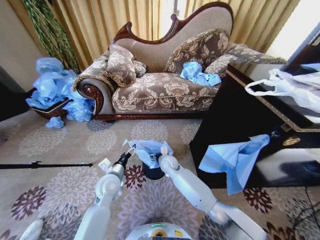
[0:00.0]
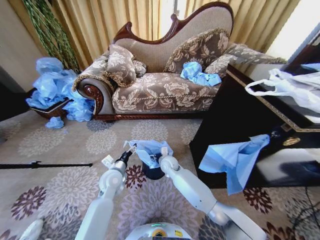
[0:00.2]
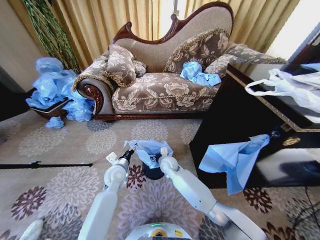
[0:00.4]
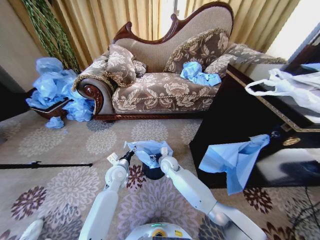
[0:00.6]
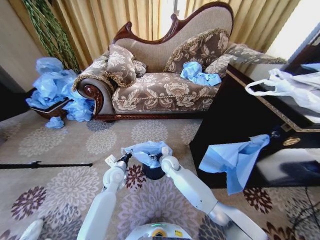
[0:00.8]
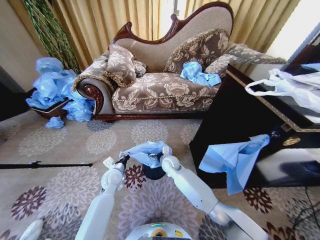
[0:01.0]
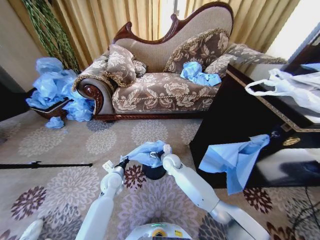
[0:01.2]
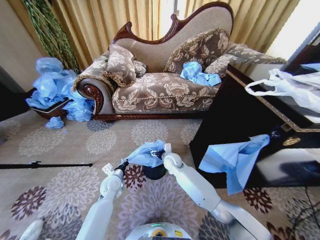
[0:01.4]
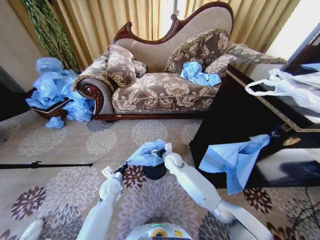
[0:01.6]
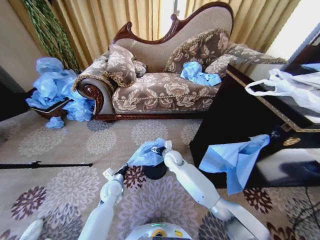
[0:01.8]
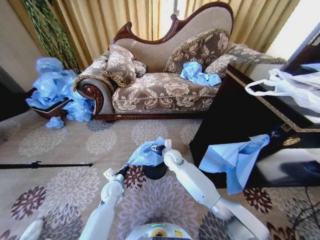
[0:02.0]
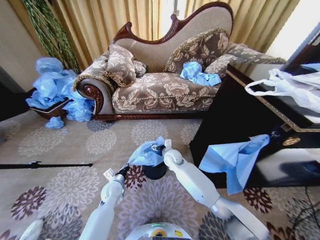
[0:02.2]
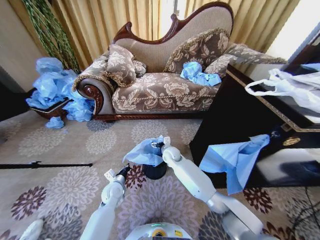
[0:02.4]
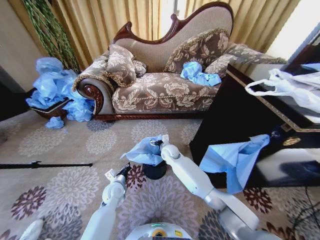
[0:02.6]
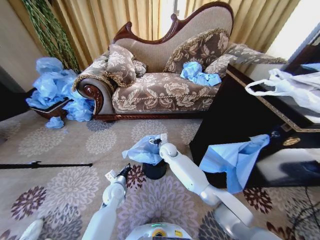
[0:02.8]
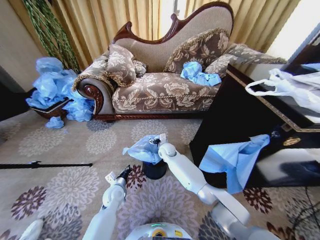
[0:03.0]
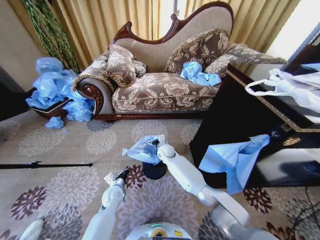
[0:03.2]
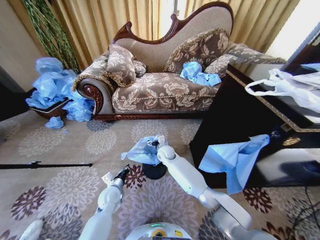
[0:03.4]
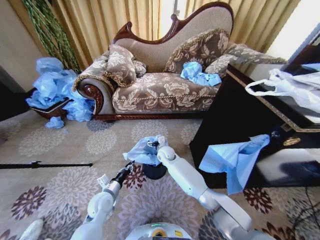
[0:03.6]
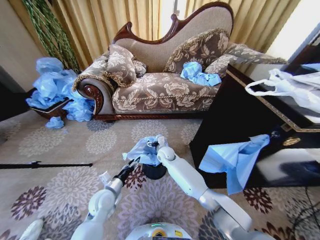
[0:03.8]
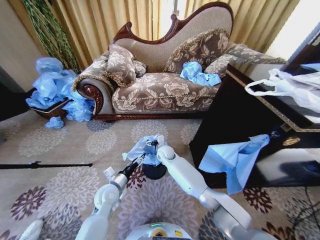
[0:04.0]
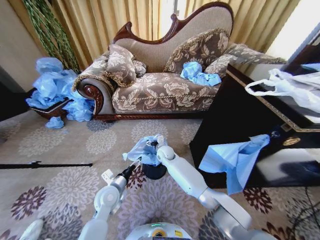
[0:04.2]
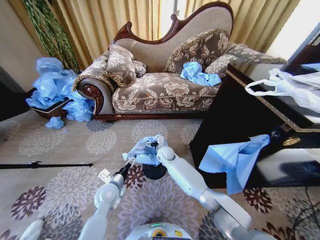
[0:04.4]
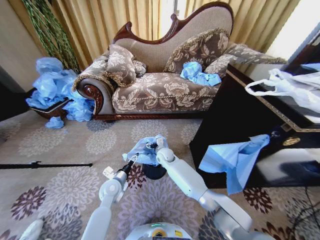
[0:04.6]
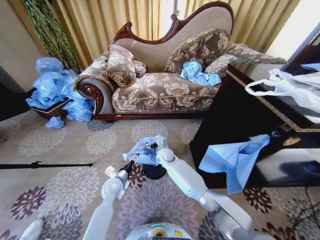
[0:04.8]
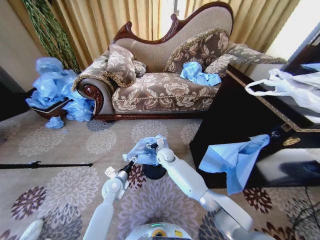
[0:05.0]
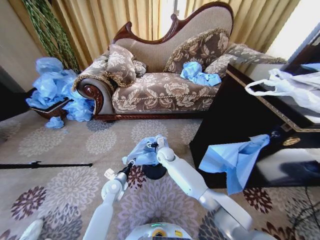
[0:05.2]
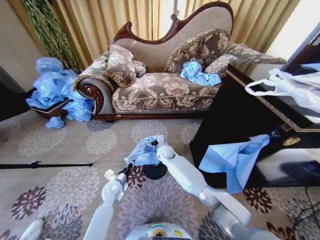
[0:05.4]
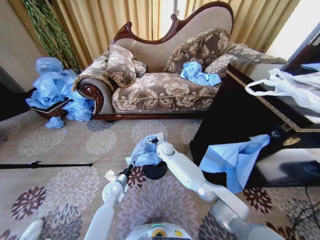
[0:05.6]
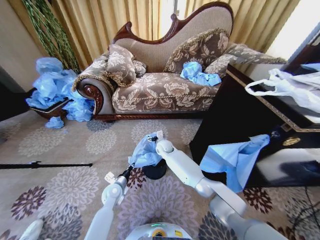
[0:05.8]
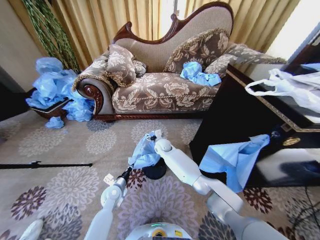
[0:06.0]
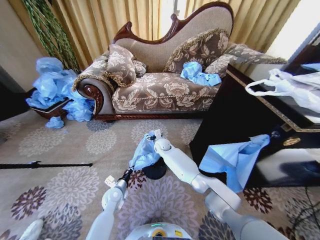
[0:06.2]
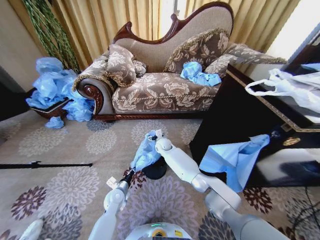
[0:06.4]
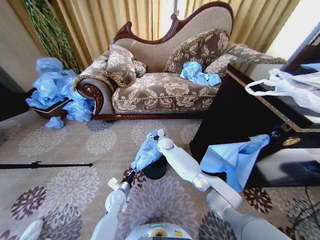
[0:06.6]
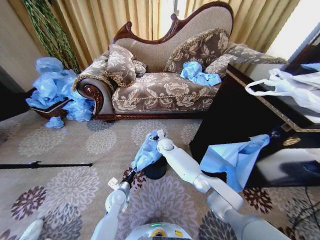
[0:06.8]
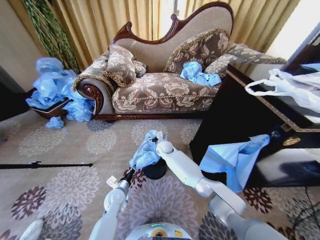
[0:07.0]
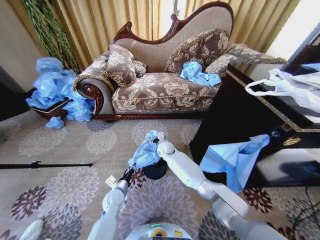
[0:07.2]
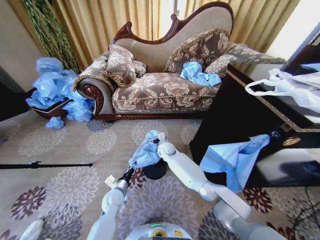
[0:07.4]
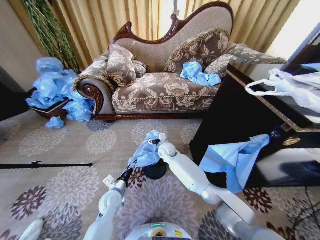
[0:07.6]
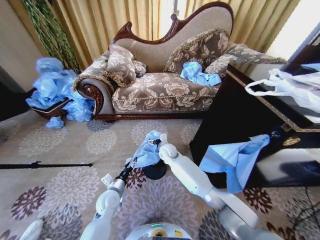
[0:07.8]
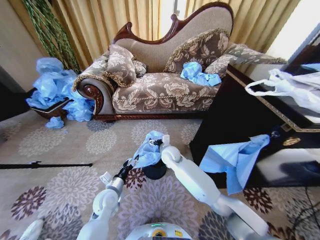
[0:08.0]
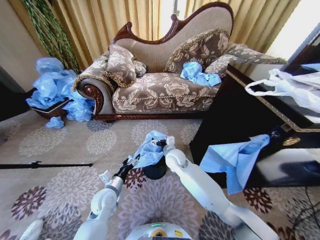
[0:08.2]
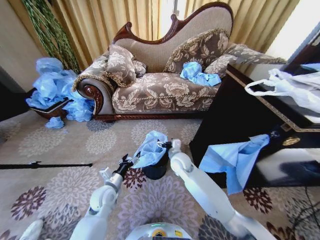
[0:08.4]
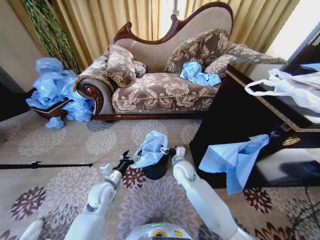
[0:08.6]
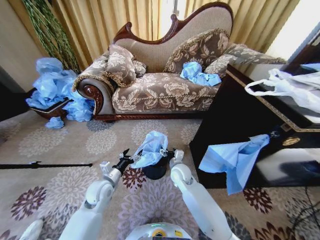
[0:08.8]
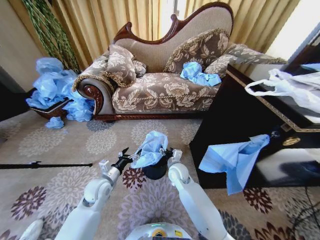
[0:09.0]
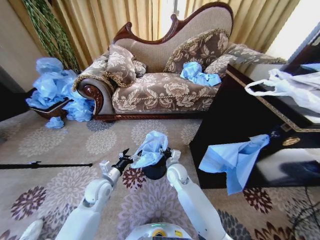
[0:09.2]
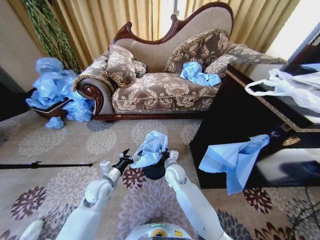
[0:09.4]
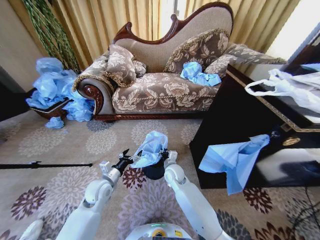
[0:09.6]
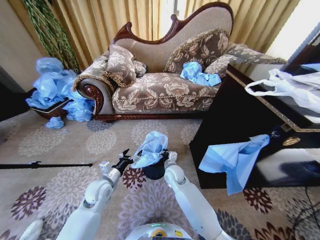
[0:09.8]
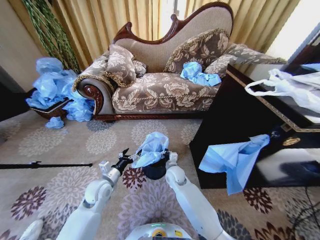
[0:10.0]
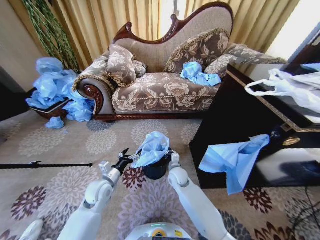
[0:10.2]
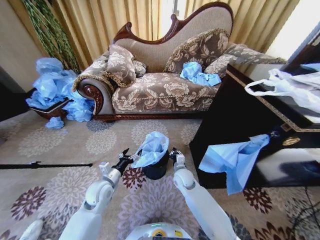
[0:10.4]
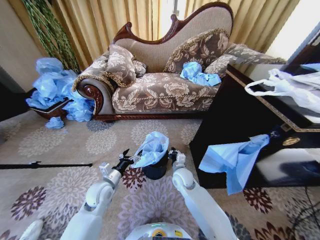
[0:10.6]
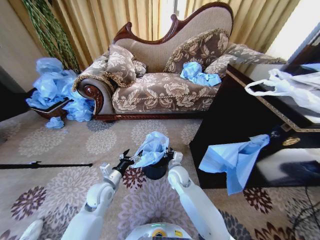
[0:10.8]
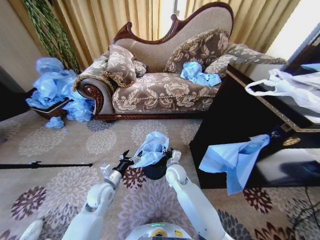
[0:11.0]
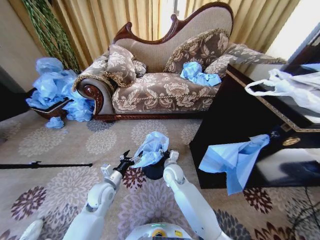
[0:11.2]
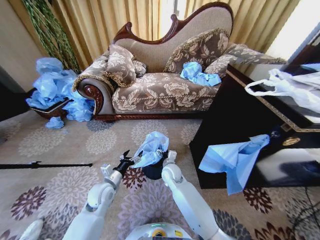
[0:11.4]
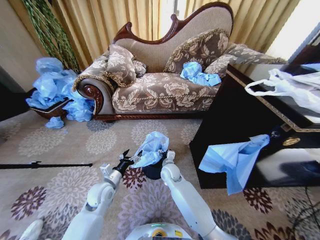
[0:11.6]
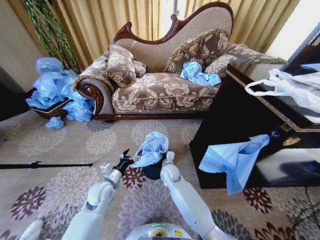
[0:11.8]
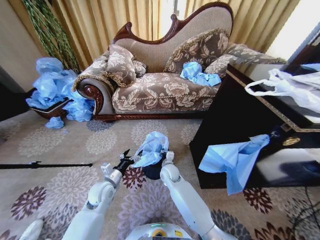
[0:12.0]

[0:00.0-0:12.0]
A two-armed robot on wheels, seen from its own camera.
Task of the whole recording: Place a garbage bag over the trash bin.
0:00.0 to 0:01.6: The left gripper travels downward by approximately 10 cm, and closes its fingers.
0:01.6 to 0:03.0: The right gripper moves forward, approximately 5 cm.
0:03.0 to 0:04.4: The left gripper shifts about 10 cm upward, and opens up.
0:04.4 to 0:06.0: The right gripper moves some 5 cm. The left gripper is displaced downward by roughly 10 cm, and closes its fingers.
0:06.0 to 0:07.6: The left gripper opens its fingers.
0:07.6 to 0:09.0: The right gripper travels backward by about 10 cm. Meanwhile the left gripper is displaced upward by roughly 10 cm, and opens up.
0:09.0 to 0:10.4: The right gripper closes.
0:10.4 to 0:12.0: The right gripper is displaced to the left by some 5 cm, and opens and closes again.

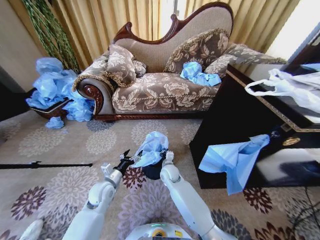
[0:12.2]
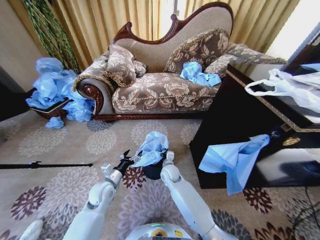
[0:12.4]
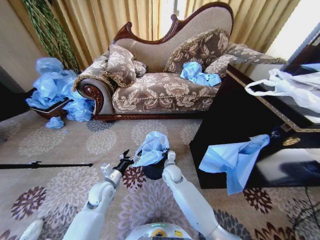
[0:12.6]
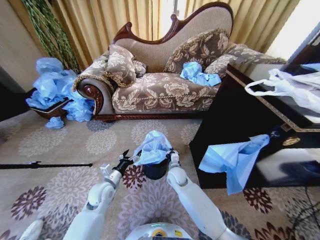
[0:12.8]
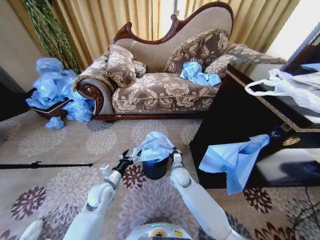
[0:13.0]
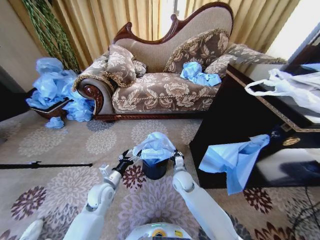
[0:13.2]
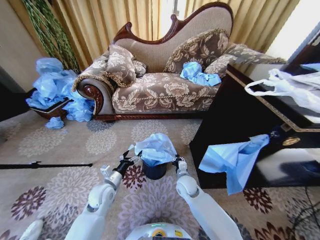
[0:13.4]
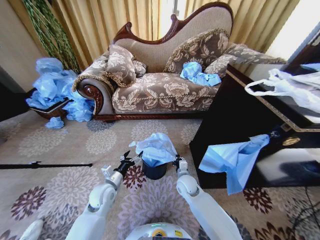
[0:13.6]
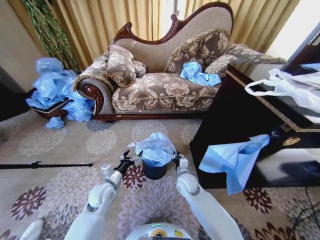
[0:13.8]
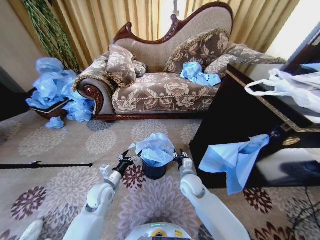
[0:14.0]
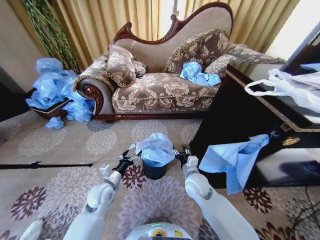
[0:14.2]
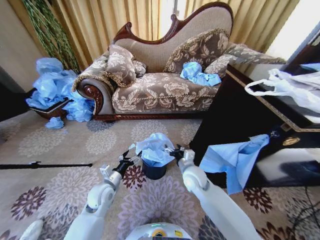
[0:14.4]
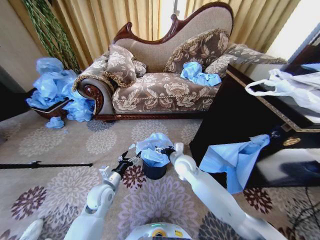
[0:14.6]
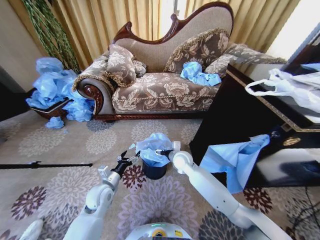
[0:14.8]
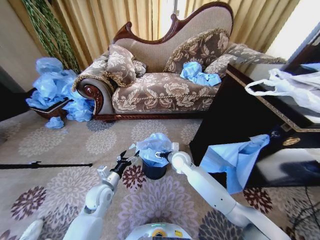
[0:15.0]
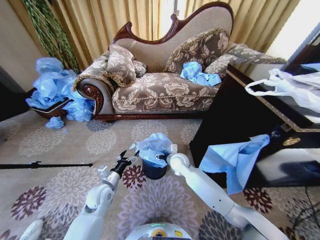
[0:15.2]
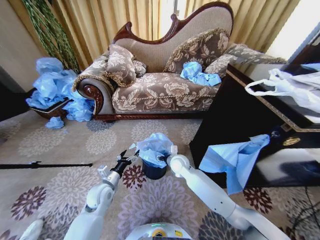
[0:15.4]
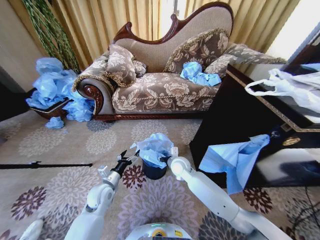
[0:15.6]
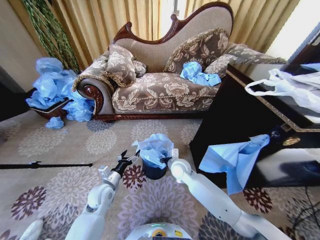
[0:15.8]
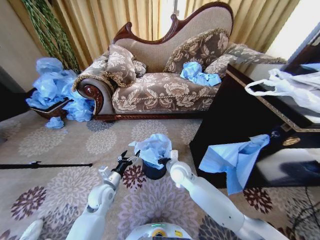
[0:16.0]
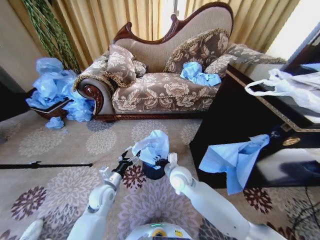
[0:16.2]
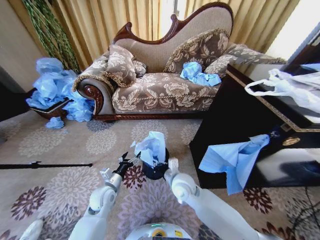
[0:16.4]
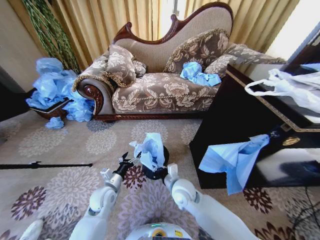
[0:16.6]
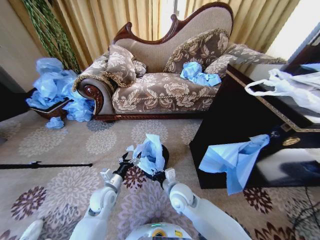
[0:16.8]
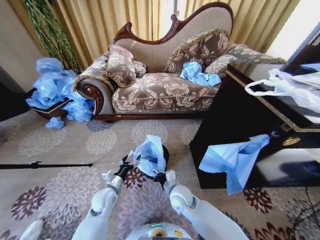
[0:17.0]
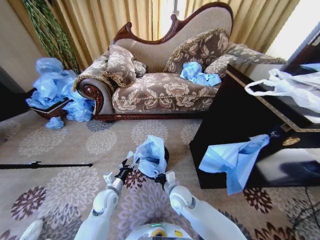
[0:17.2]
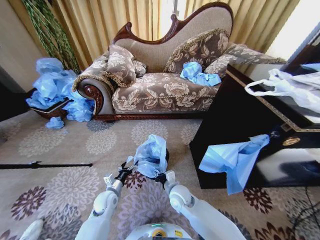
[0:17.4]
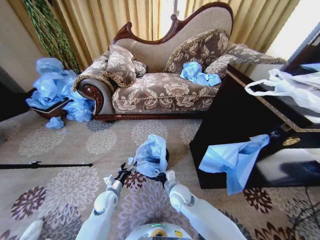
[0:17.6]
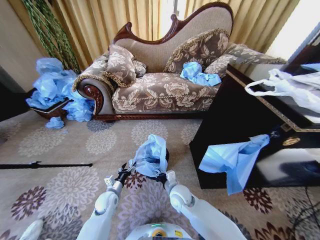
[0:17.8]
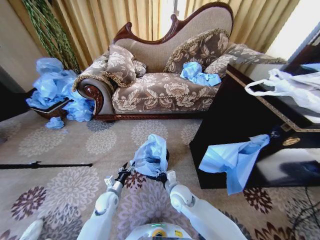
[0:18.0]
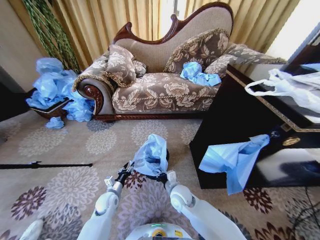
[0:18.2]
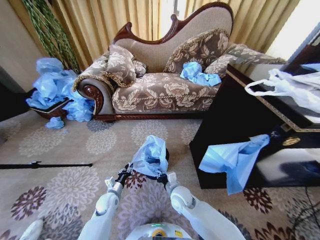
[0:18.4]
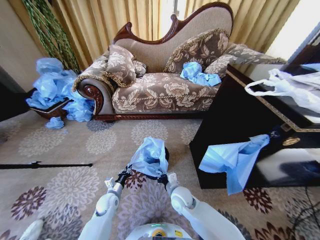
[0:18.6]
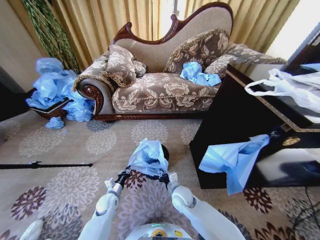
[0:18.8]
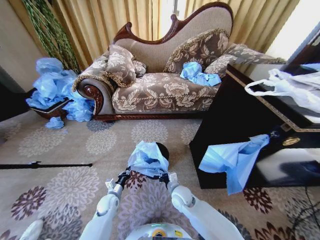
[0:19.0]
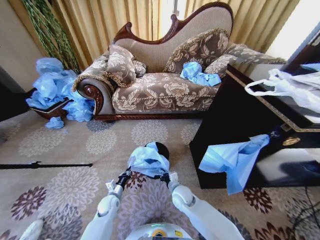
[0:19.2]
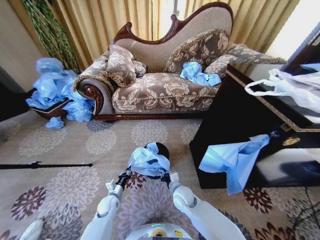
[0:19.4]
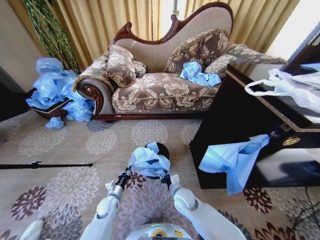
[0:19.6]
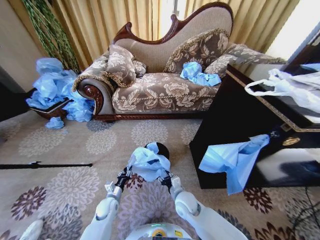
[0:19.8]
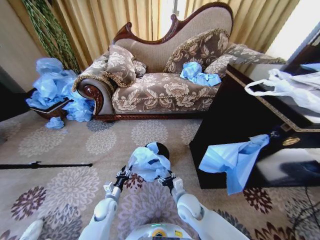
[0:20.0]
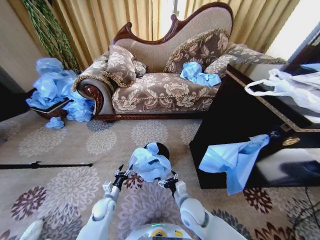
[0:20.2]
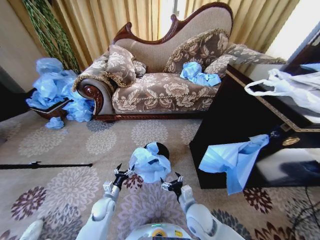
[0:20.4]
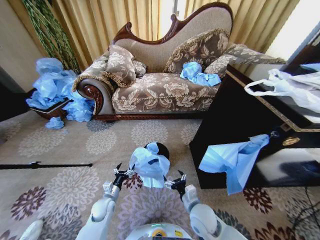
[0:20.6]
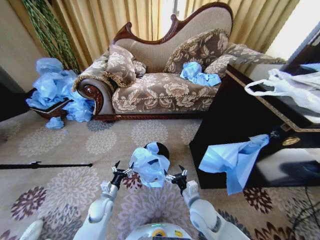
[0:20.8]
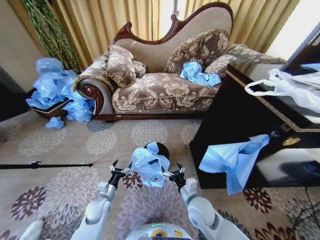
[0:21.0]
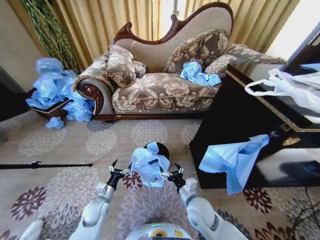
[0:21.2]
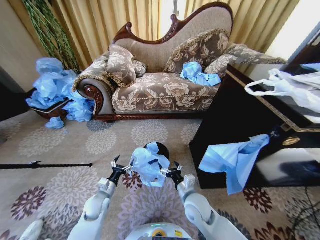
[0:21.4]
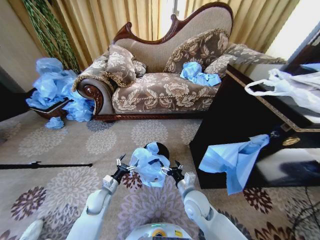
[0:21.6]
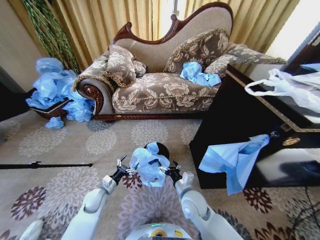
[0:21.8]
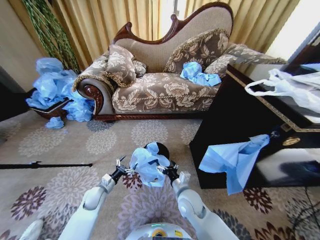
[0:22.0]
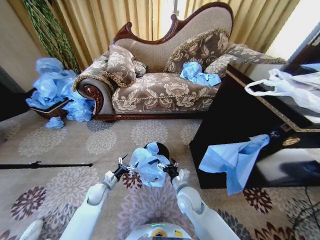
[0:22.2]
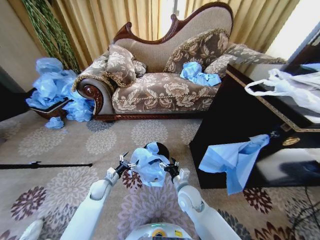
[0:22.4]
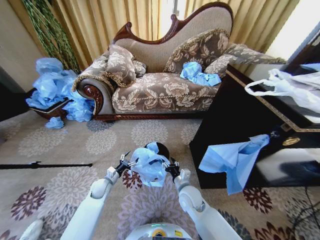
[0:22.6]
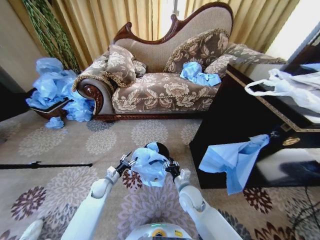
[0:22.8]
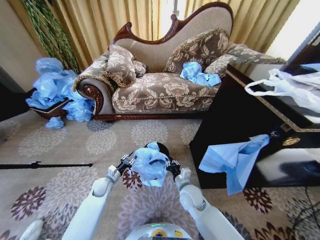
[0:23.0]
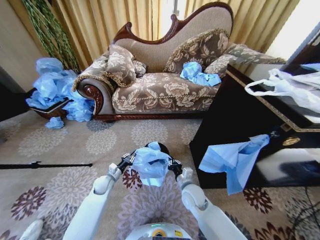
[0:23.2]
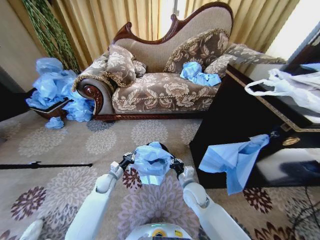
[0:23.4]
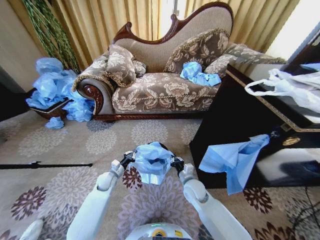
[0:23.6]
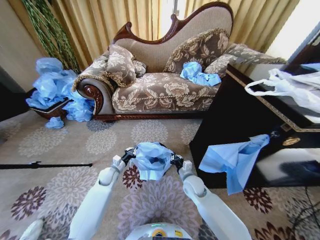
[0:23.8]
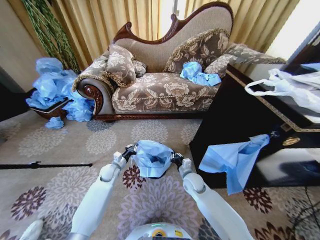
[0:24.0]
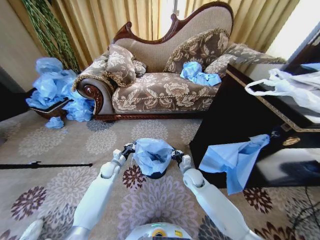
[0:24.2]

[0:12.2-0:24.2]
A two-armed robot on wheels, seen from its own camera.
Task of the whole recording: Place a garbage bag over the trash bin.
0:12.2 to 0:13.8: The right gripper shifts approximately 10 cm to the right.
0:13.8 to 0:15.2: The right gripper moves forward and upward, some 10 cm, and opens its fingers.
0:15.2 to 0:16.6: The right gripper goes roughly 15 cm backward, and closes up.
0:16.6 to 0:18.2: The left gripper heads downward, covering roughly 10 cm, and closes its fingers. Meanwhile the right gripper goes about 5 cm downward.
0:18.2 to 0:19.8: The right gripper opens.
0:19.8 to 0:21.2: Both grippers move upward, roughly 5 cm. The right gripper opens up, while the left gripper opens.
0:21.2 to 0:22.6: The right gripper goes roughly 5 cm forward, and closes. Meanwhile the left gripper goes roughly 10 cm forward.
0:22.6 to 0:24.2: The grippers both shift forward by about 10 cm. The left gripper closes up, while the right gripper closes up.
